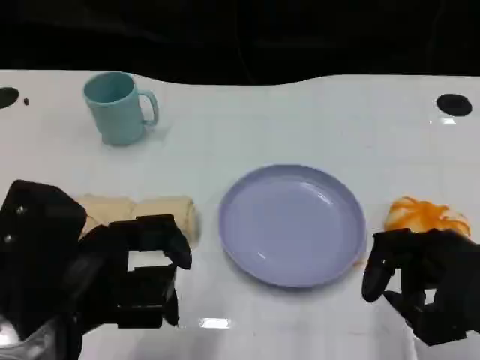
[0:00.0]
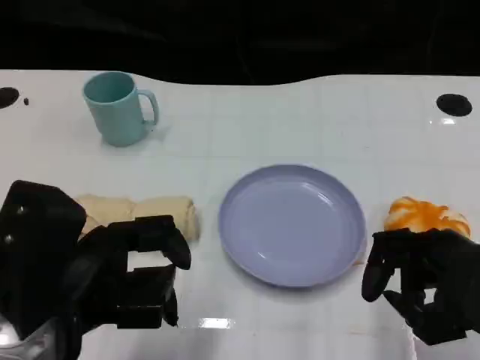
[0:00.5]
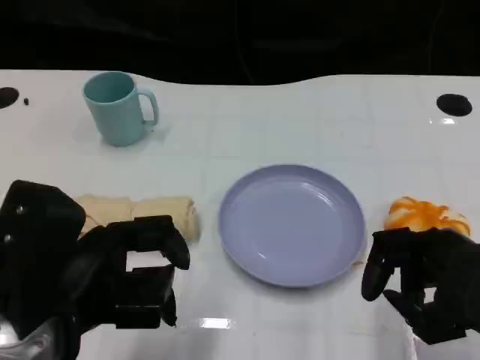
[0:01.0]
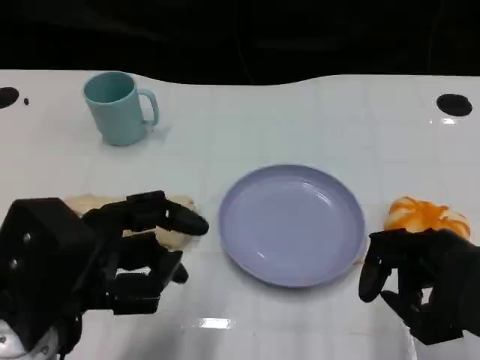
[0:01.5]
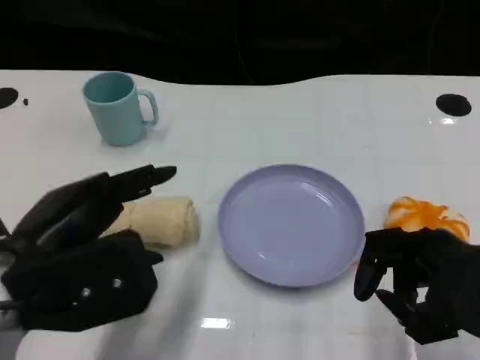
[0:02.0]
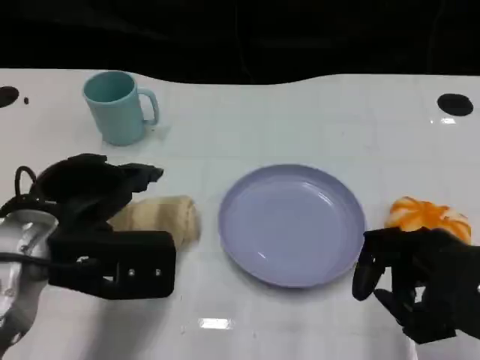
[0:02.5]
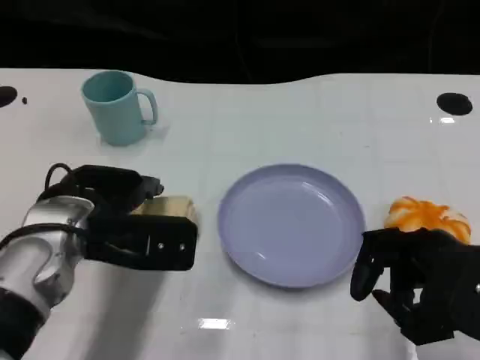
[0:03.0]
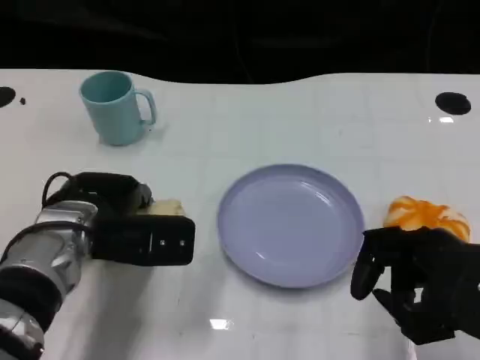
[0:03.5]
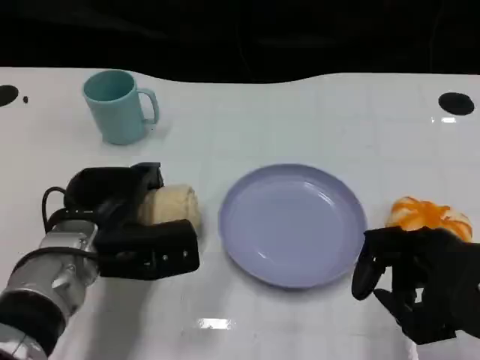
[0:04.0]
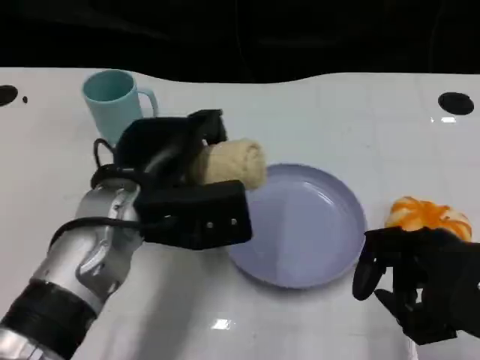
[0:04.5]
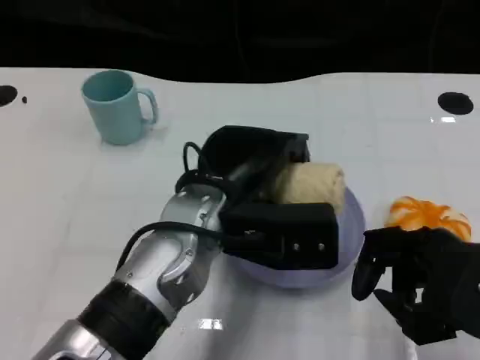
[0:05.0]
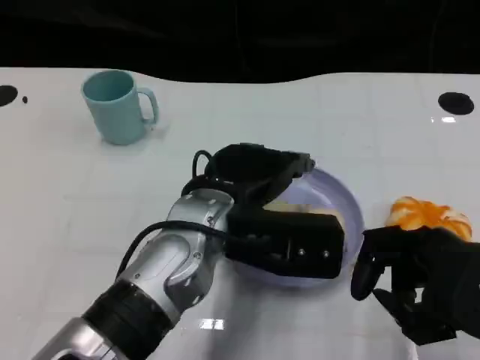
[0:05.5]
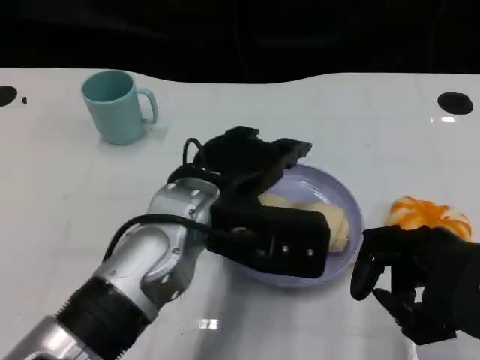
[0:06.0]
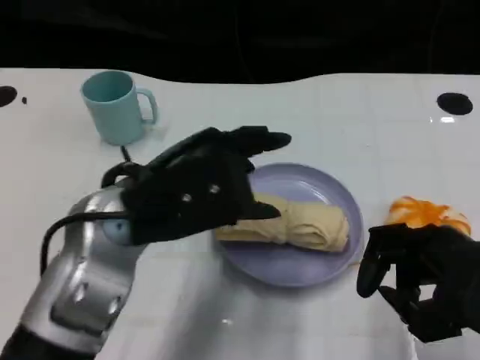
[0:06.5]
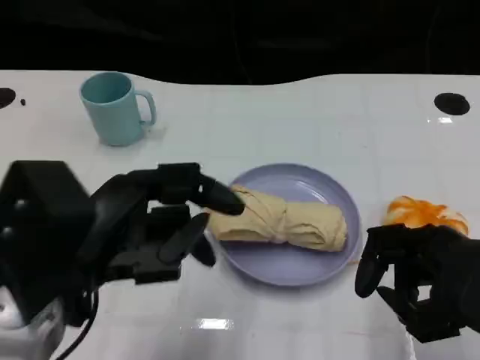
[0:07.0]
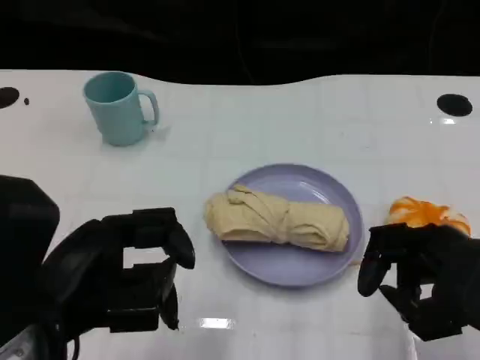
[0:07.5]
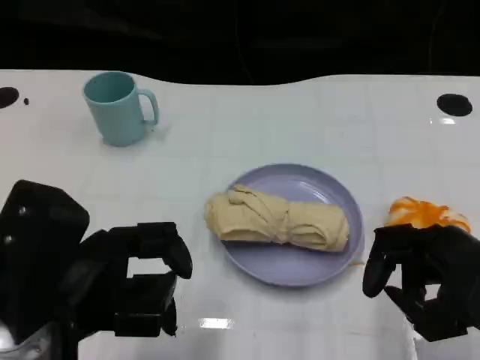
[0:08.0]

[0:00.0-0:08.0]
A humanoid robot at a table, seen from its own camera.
Task of the whole recording: Grasp the towel on the left side of the plate with the left hand and place it into the plate.
0:02.0 to 0:04.0: The left hand shifts roughly 15 cm downward and forward.
0:04.0 to 0:06.0: The left hand goes roughly 15 cm to the right and upward.
0:06.0 to 0:08.0: The left hand moves to the left and backward, approximately 15 cm.

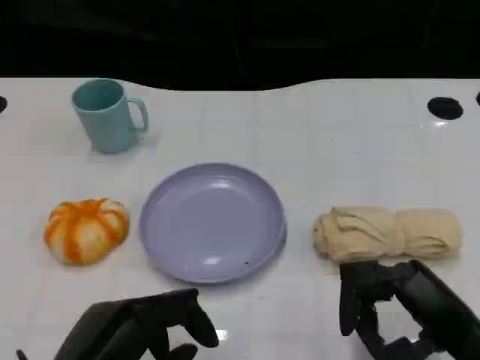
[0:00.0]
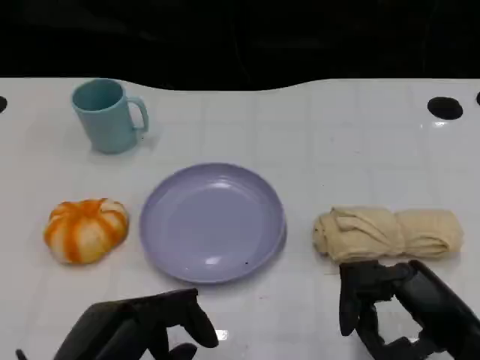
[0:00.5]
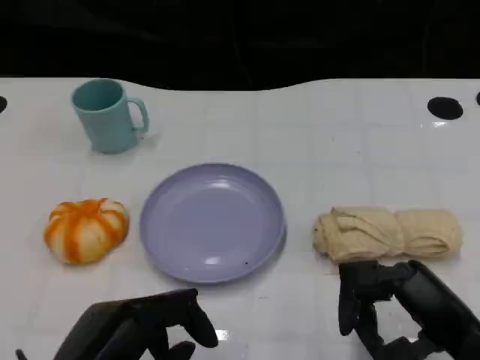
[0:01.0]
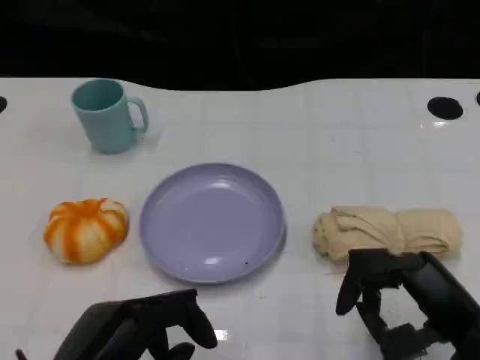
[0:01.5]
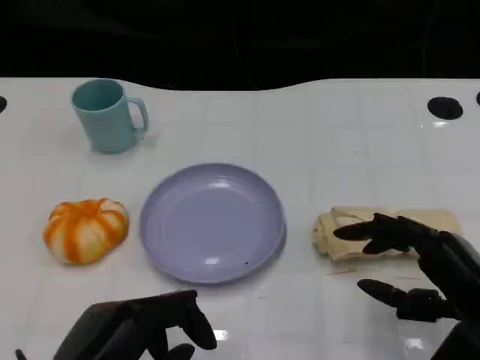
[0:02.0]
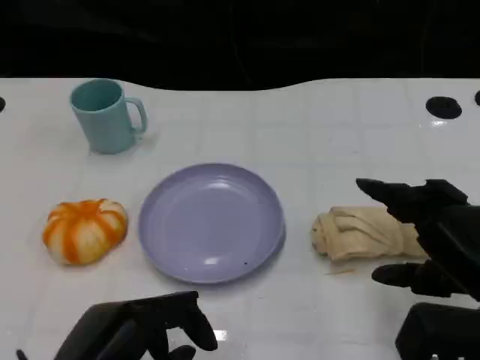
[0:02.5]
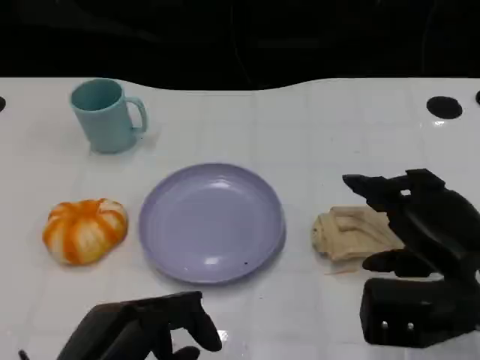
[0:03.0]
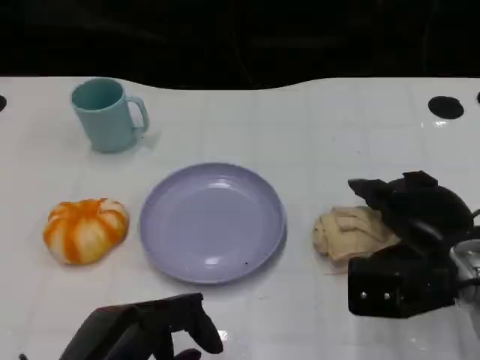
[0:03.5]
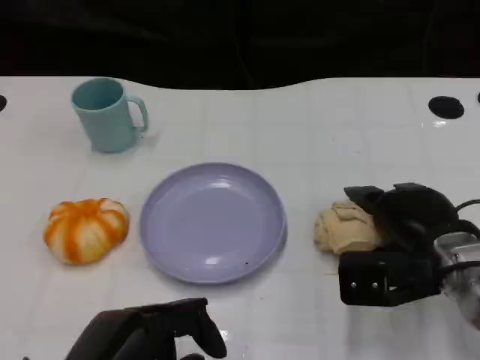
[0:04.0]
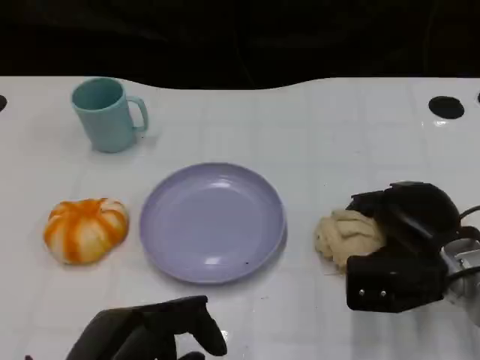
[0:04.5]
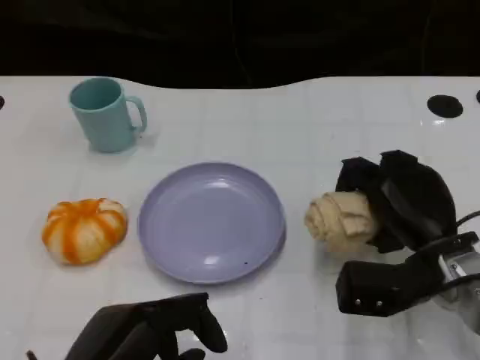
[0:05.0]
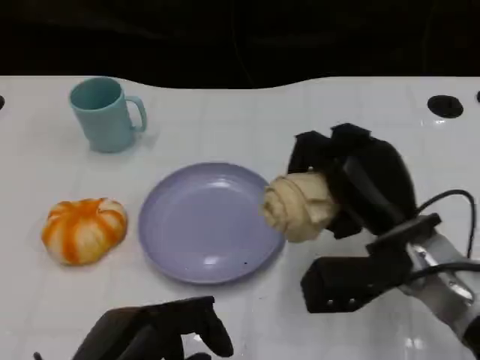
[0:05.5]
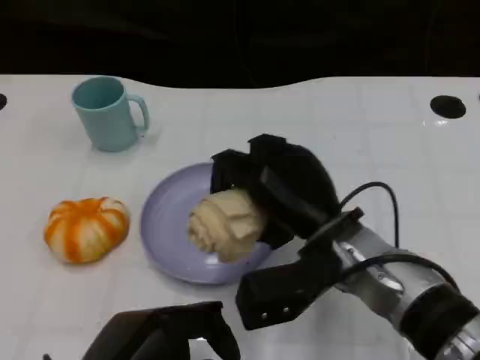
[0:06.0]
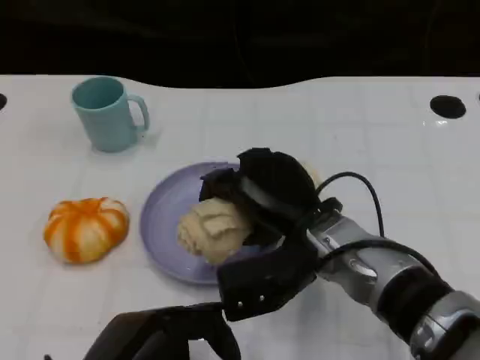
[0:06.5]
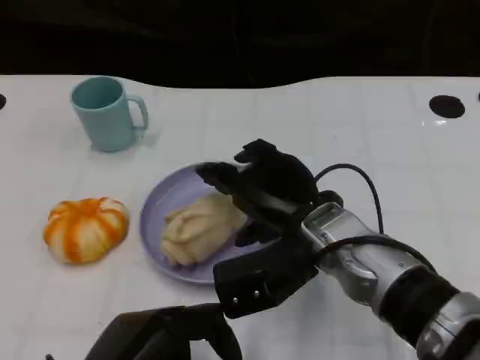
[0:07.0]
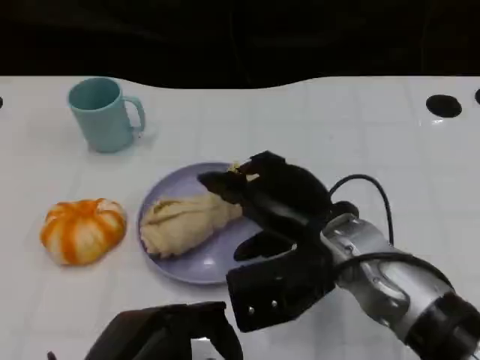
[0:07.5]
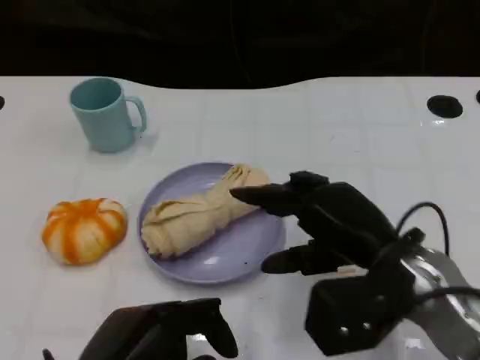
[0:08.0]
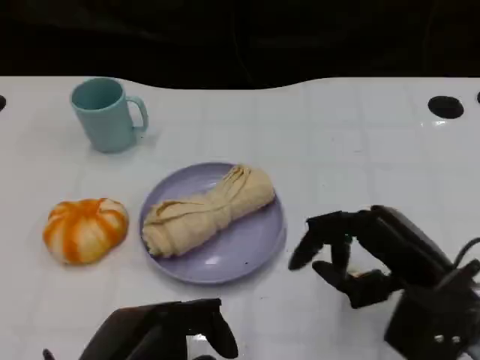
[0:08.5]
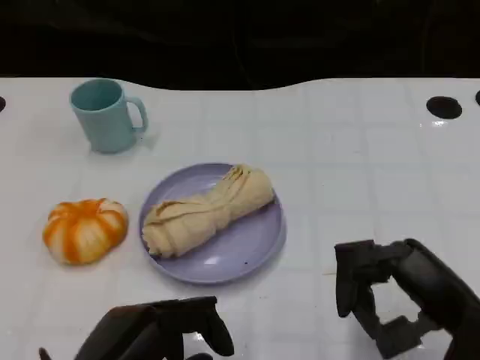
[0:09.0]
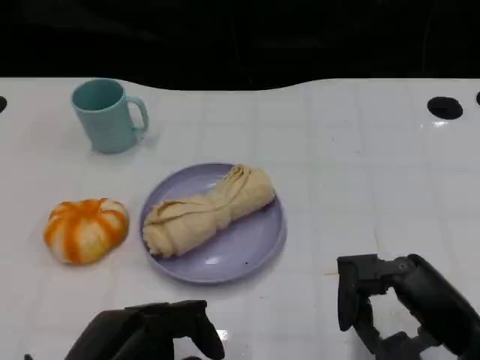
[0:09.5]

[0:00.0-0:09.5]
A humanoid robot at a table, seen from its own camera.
Task of the whole recording: Grasp the towel on the left side of the plate with the left hand and place it into the plate.
0:02.0 to 0:04.0: The right hand is displaced forward by some 10 cm.
0:04.0 to 0:05.5: The right hand heads to the left, covering some 5 cm.
0:05.5 to 0:07.5: The right hand moves to the left, about 5 cm.
0:07.5 to 0:09.5: The right hand moves to the right and backward, roughly 15 cm.

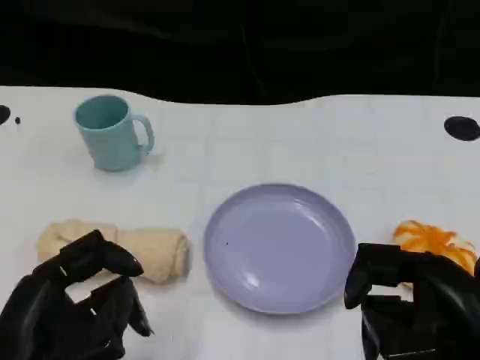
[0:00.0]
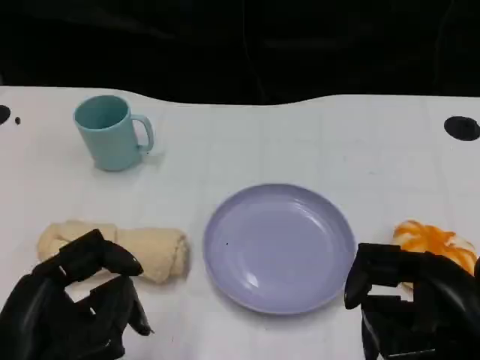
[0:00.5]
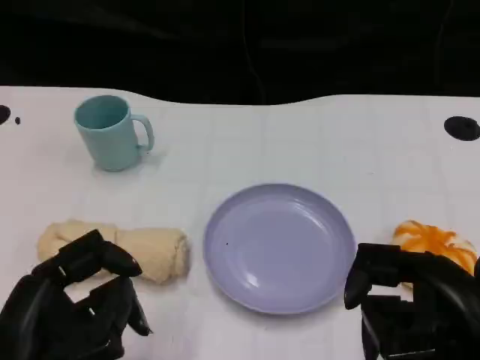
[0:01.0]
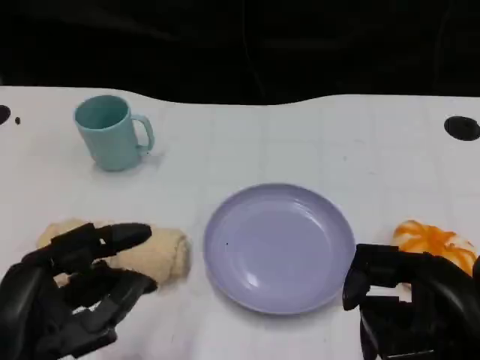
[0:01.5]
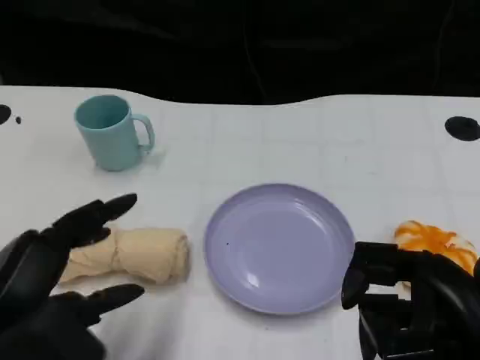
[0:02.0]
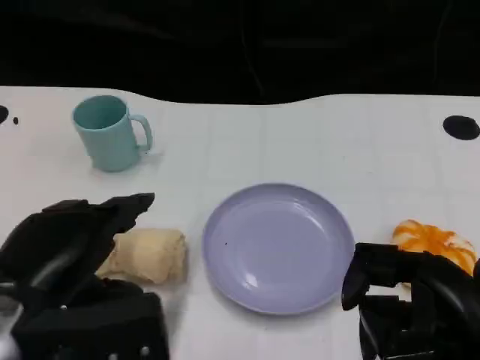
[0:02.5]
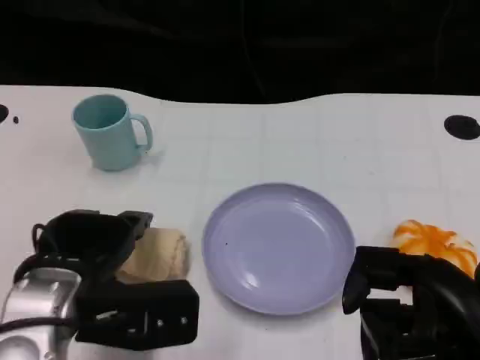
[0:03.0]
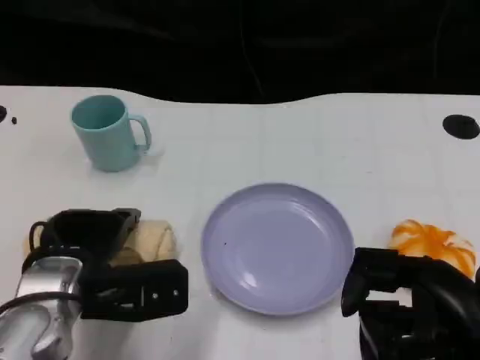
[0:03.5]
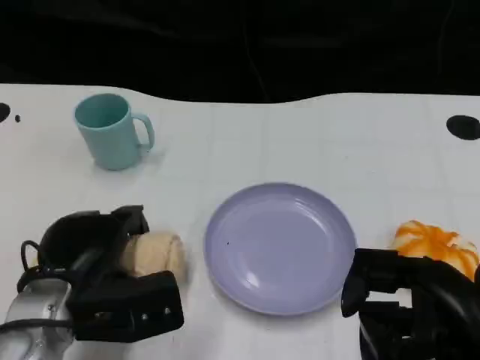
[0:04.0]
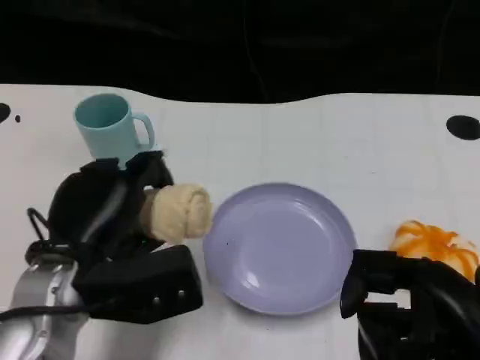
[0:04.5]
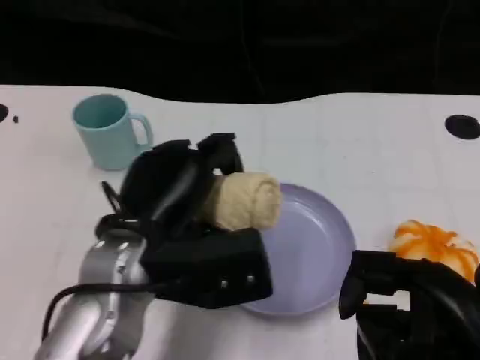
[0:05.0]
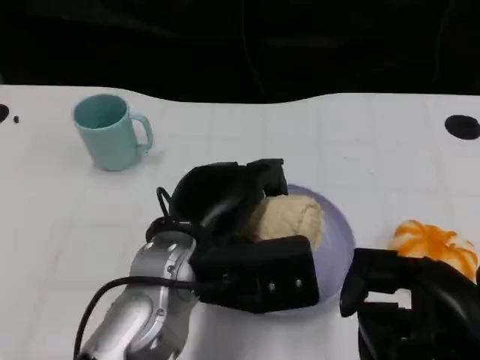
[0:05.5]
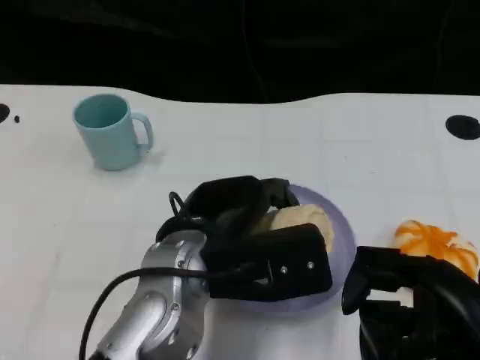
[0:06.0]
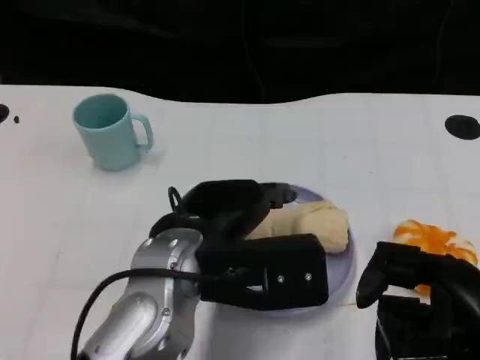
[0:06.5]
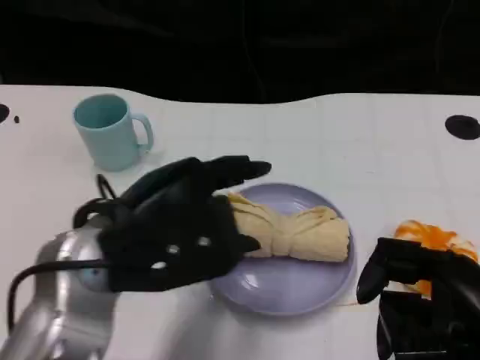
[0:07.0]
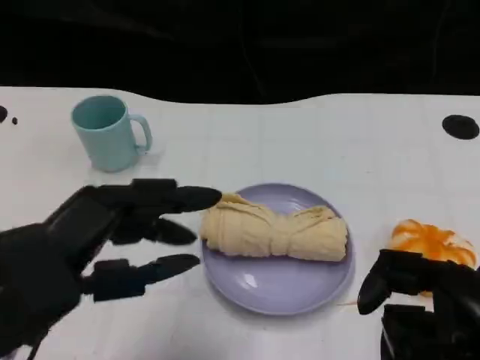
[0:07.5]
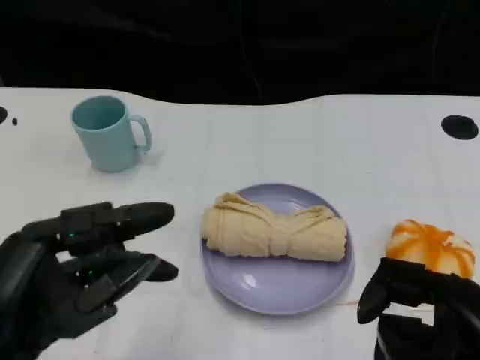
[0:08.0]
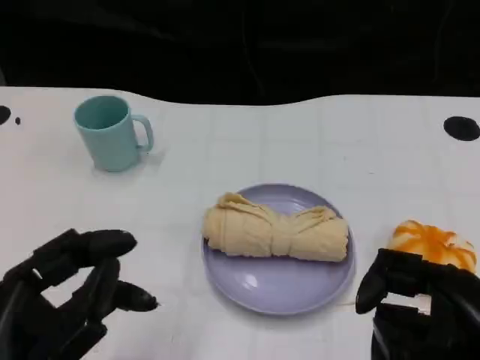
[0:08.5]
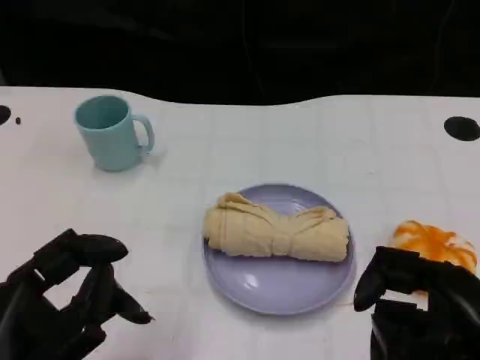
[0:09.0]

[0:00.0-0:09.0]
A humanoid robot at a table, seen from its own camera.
Task of the whole recording: Grasp the towel on the left side of the plate with the left hand and place it into the plate.
0:02.0 to 0:04.5: The left hand is displaced forward and to the right by approximately 10 cm.
0:04.5 to 0:07.0: The left hand heads upward, covering about 5 cm, and travels to the right and back again, roughly 10 cm each way.
0:07.0 to 0:09.0: The left hand travels backward, to the left and downward by some 15 cm.
